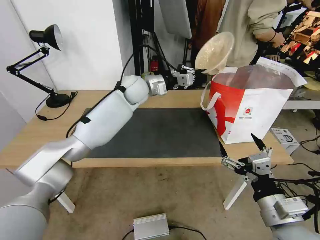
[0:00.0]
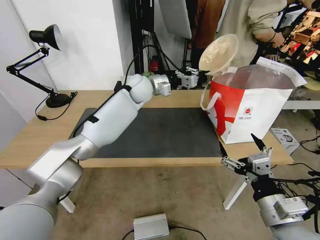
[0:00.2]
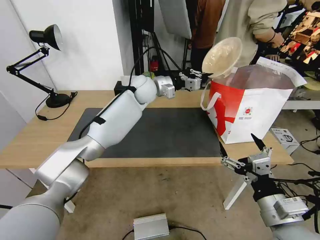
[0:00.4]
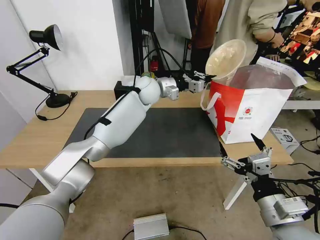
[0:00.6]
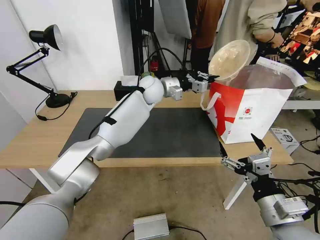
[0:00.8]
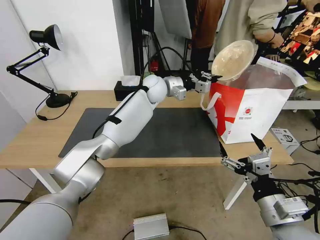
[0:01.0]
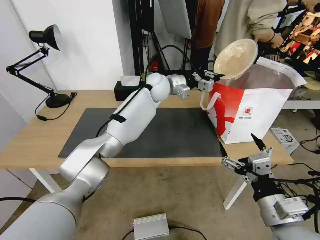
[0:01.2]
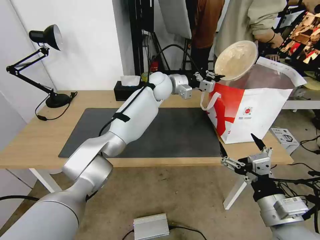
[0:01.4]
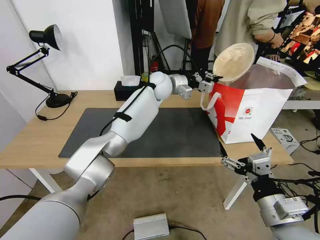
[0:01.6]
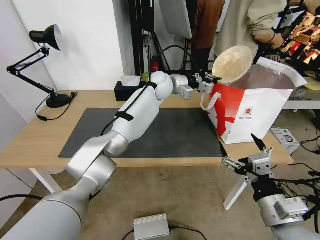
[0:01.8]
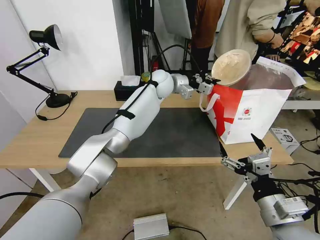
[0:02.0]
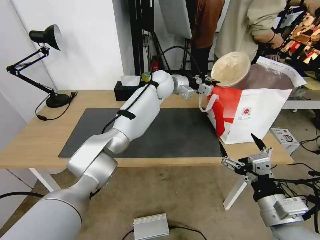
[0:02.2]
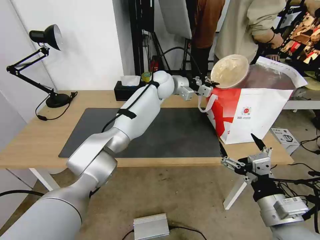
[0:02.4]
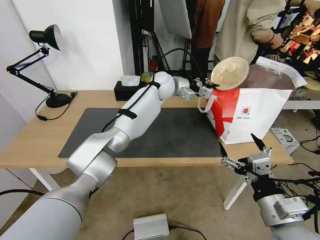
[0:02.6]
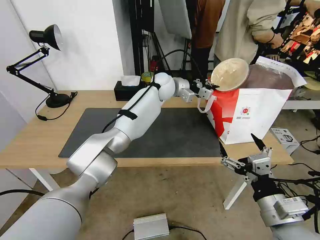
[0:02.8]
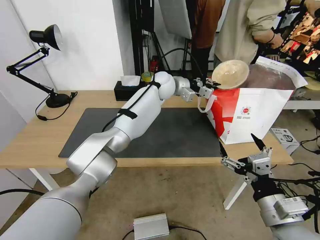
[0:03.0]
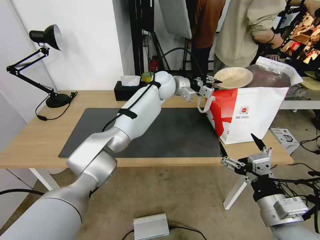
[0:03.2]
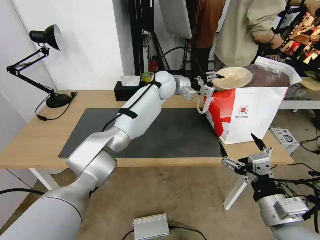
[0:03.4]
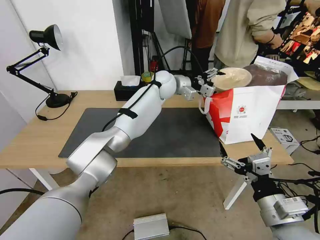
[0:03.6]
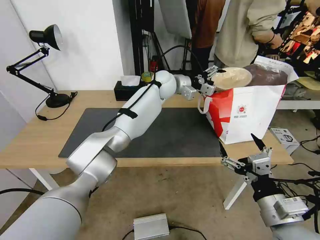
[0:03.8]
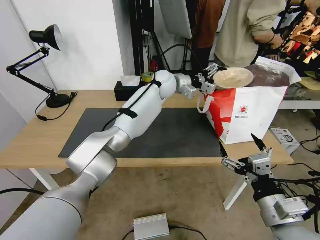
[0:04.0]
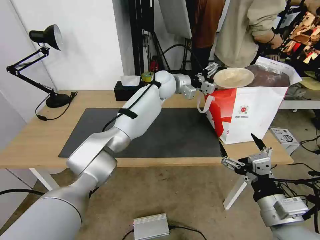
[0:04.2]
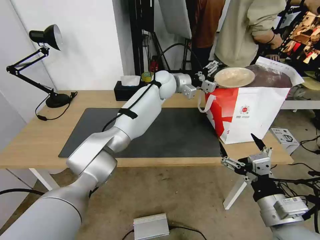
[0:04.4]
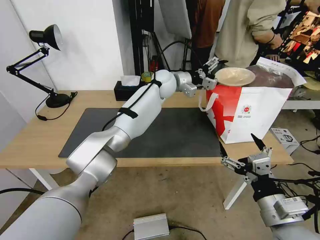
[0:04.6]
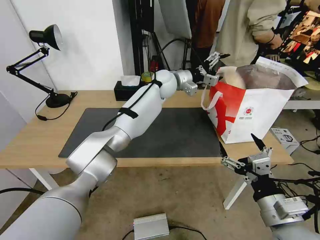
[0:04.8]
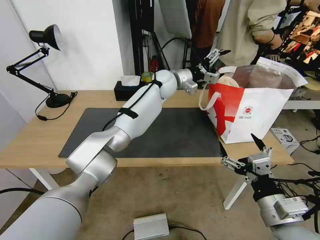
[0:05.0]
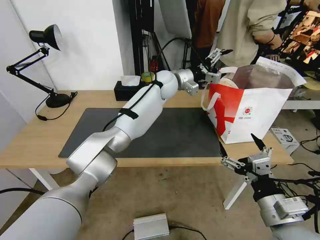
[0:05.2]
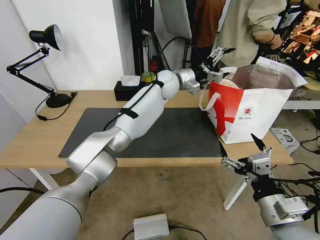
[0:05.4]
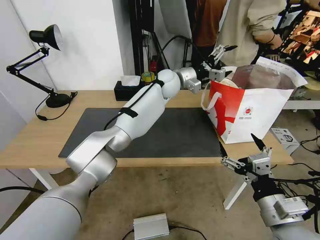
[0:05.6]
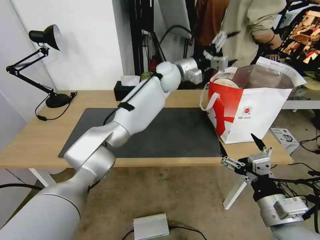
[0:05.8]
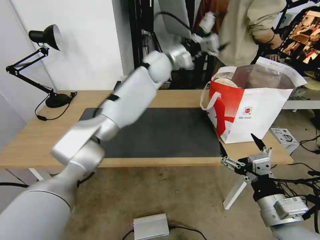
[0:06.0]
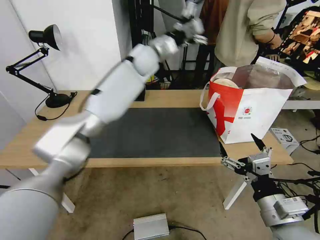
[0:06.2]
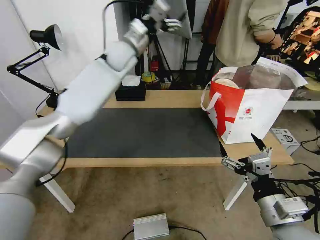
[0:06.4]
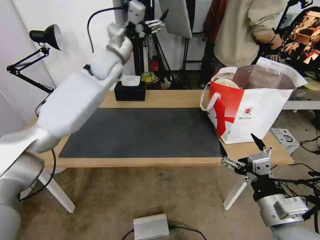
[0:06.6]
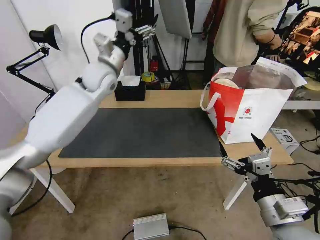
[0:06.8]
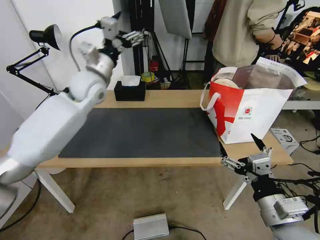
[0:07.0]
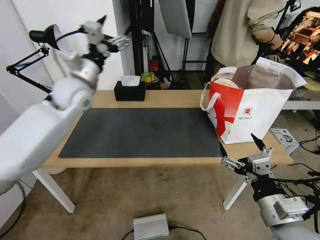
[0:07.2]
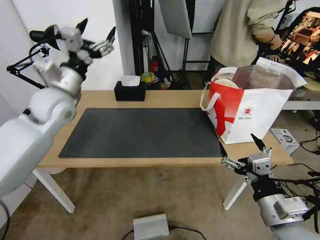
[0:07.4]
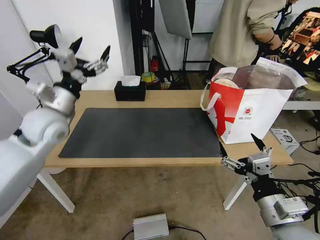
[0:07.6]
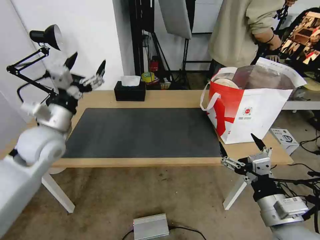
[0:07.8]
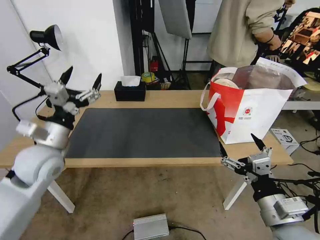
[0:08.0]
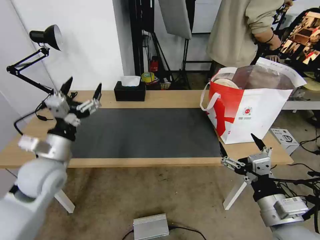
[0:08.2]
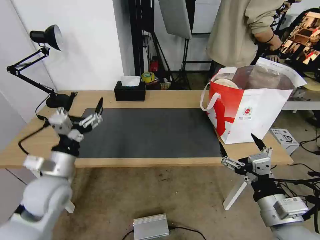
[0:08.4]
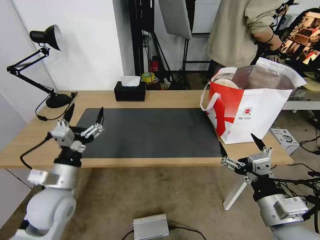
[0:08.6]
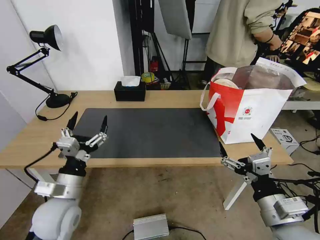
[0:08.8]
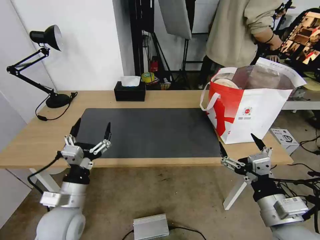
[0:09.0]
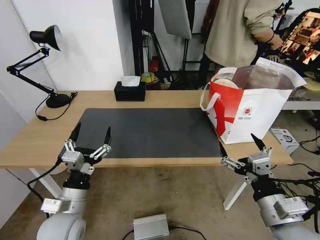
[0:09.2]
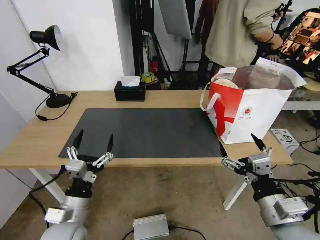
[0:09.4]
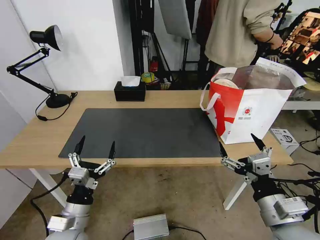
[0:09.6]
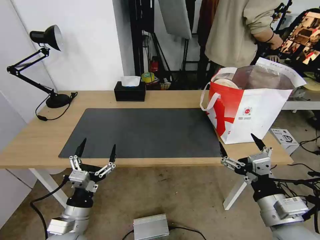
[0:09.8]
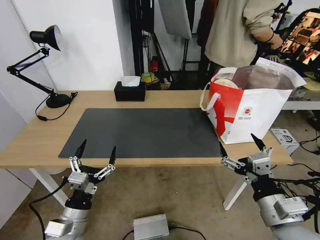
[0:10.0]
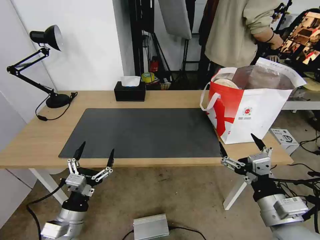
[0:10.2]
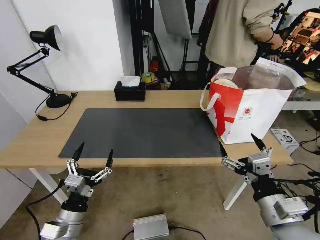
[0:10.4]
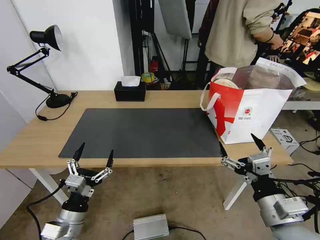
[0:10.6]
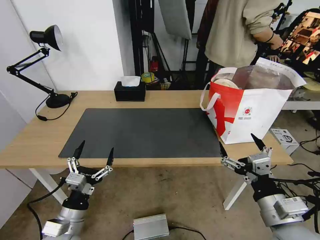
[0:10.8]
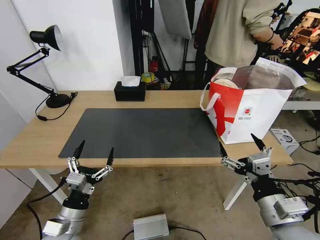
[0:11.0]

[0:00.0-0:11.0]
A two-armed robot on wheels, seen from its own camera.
Task of the whole recording: Pick up the trash from the table and place it into the takeout bag.
0:00.0 to 0:01.6: The left gripper shifts roughly 10 cm to the right.
0:01.6 to 0:03.2: There are only small adjustments of the grippers.
0:03.2 to 0:04.8: The left gripper opens.
0:04.8 to 0:06.2: The left gripper heads upward and to the left, covering some 10 cm.
0:06.2 to 0:07.8: The left gripper heads backward, to the left and downward, covering approximately 40 cm.
0:07.8 to 0:09.4: The left gripper goes some 25 cm backward and downward.
0:09.4 to 0:11.0: There are only small adjustments of the grippers.

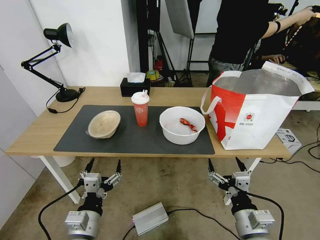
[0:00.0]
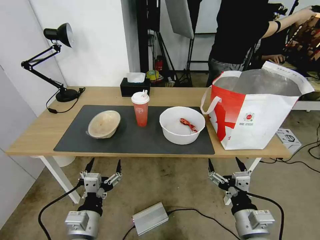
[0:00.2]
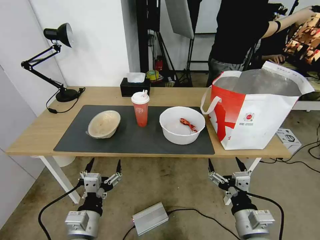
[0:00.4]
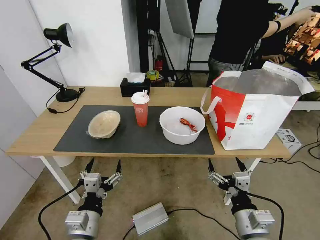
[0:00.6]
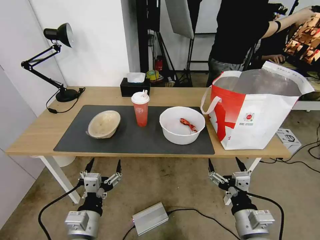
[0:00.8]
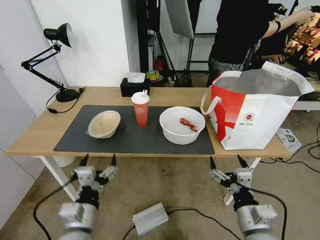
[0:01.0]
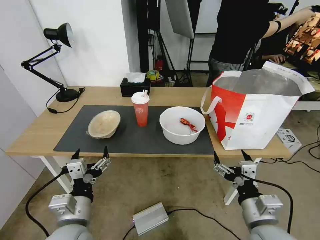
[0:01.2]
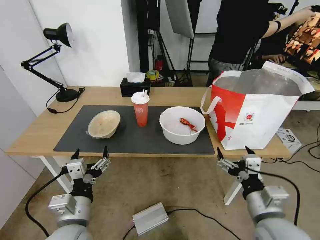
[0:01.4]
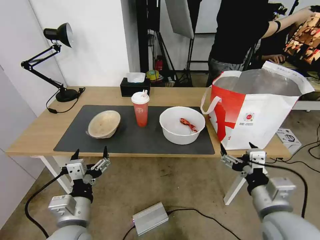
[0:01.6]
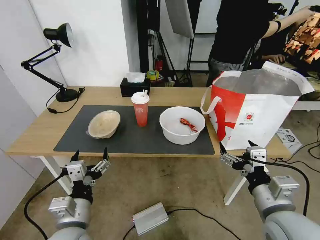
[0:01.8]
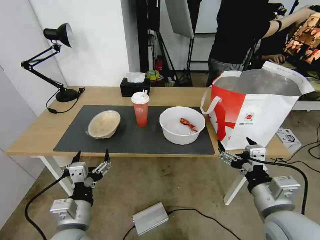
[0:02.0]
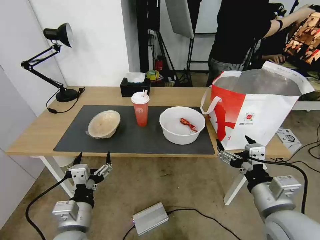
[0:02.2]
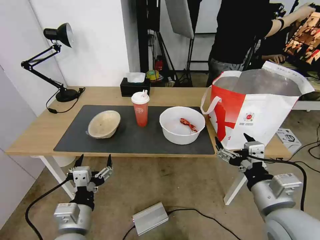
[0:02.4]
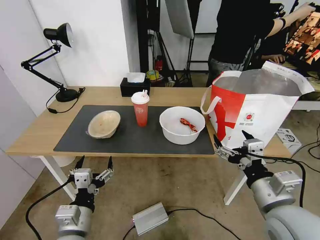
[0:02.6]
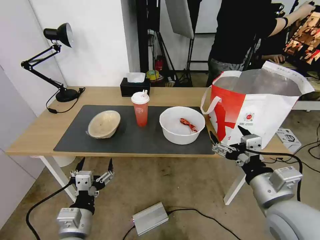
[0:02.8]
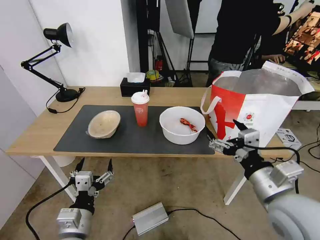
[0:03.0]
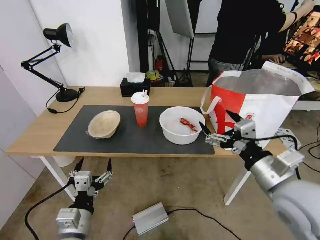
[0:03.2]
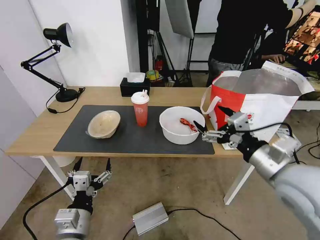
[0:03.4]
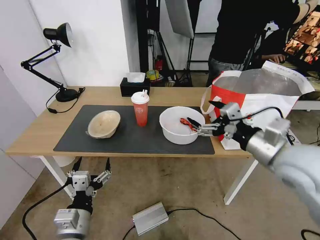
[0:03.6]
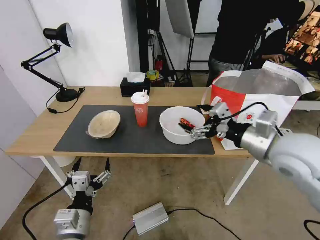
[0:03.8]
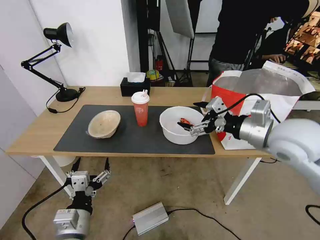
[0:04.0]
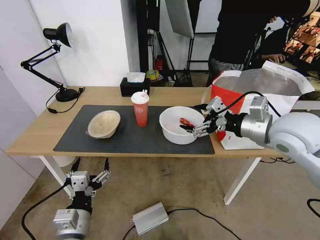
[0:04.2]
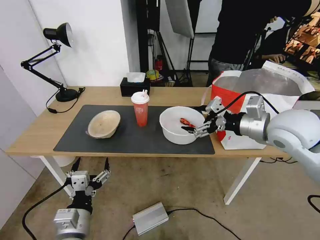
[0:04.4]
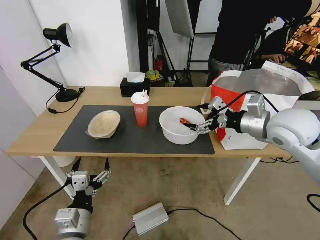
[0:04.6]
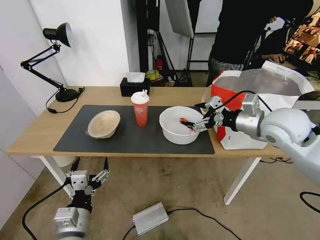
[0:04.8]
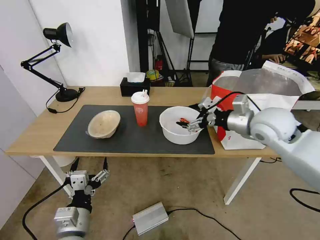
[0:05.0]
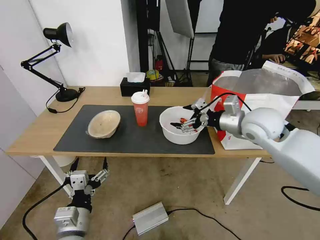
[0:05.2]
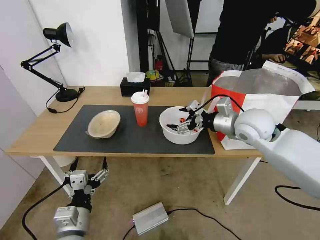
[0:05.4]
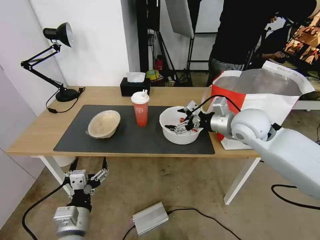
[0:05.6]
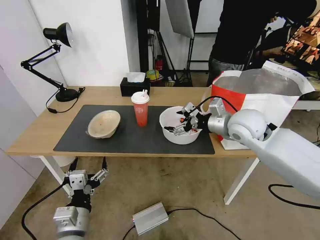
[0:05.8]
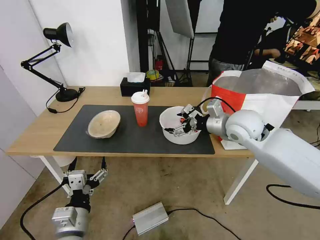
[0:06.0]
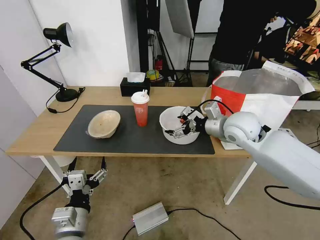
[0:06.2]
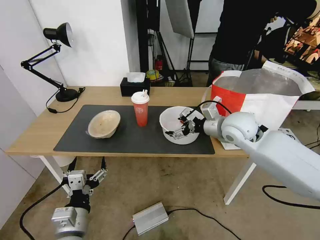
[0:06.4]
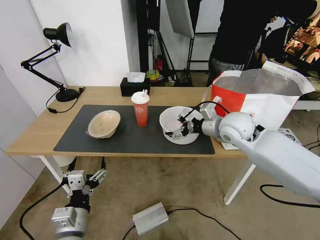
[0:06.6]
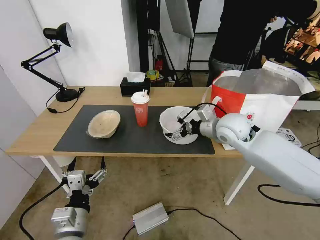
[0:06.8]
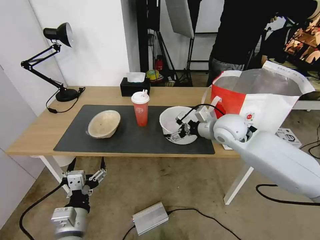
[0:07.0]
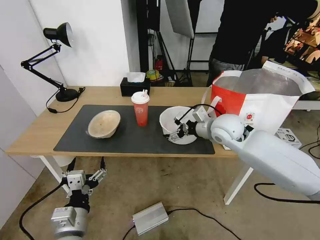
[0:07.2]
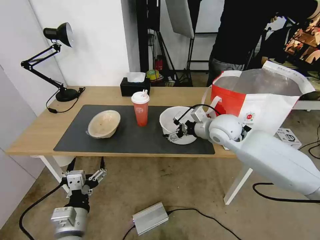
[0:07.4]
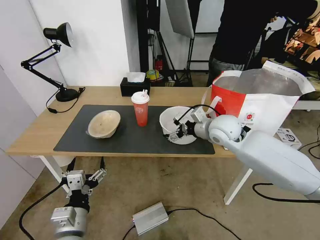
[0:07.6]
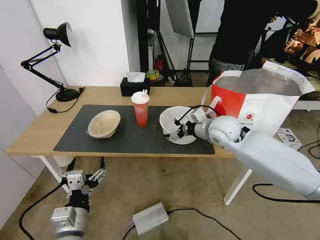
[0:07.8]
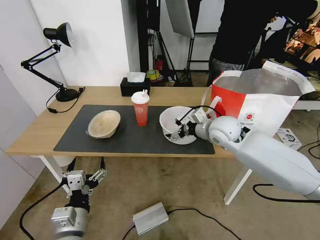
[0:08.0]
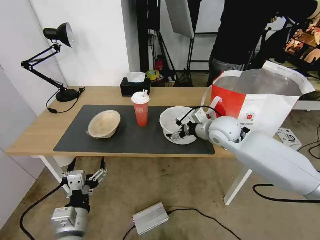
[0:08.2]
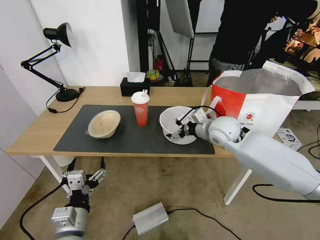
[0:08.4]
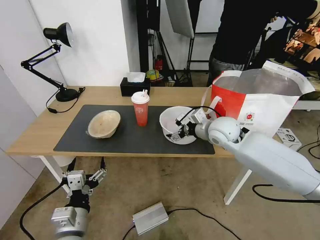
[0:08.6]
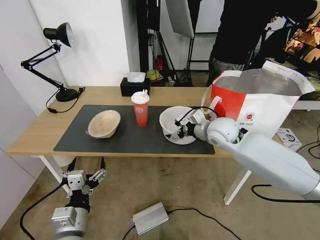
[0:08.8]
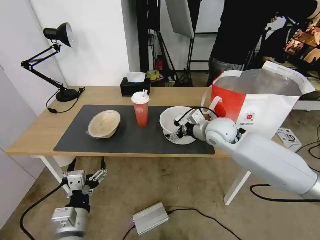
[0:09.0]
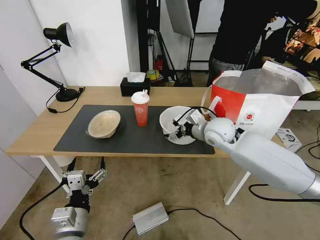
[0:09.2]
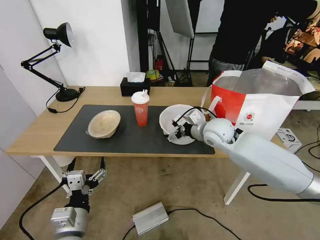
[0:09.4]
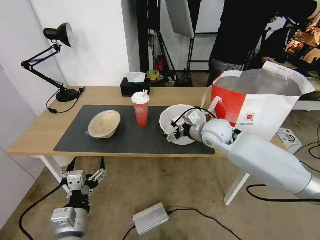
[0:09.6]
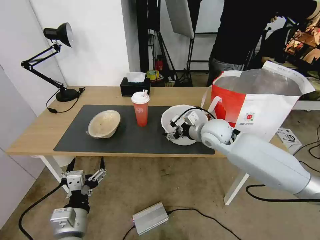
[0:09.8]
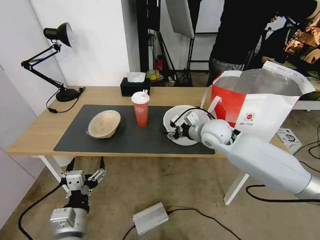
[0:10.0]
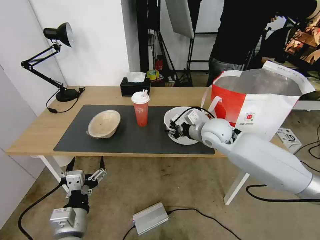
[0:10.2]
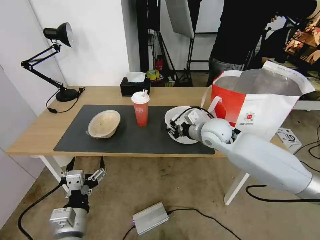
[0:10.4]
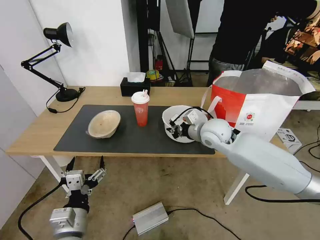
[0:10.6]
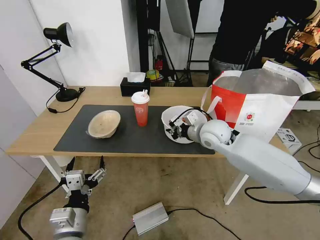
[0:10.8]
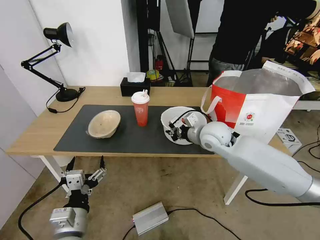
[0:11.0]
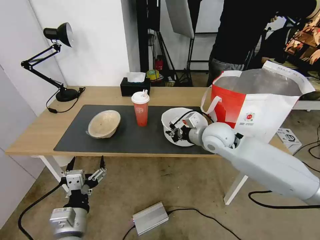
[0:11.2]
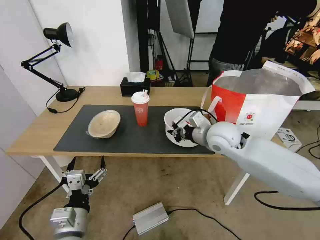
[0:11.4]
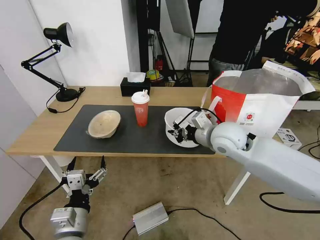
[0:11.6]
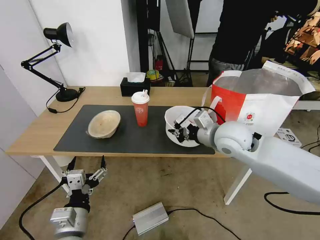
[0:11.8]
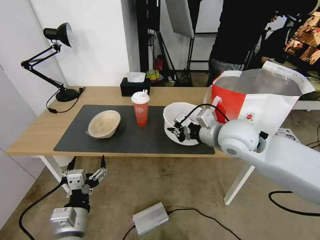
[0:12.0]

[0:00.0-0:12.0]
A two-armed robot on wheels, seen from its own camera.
Task of the whole recording: Pick up the trash from the table and place it into the takeout bag.
0:01.6 to 0:03.0: The right gripper shifts by some 5 cm.
0:03.0 to 0:04.4: The right gripper shifts some 20 cm forward and upward.
0:04.4 to 0:06.0: The right gripper goes some 10 cm forward, to the left and downward.
0:06.0 to 0:07.6: The right gripper changes place by approximately 5 cm.
0:07.6 to 0:09.0: The grippers move only a little.
0:09.0 to 0:10.4: The right gripper closes its fingers.
0:10.4 to 0:12.0: The right gripper moves backward and upward, approximately 10 cm.
